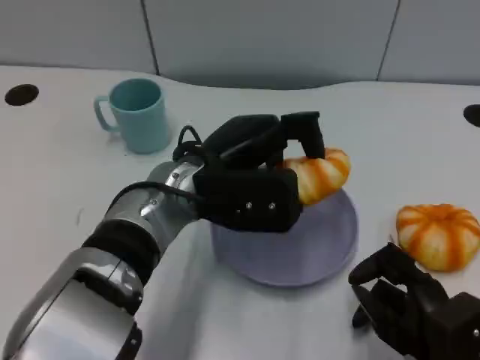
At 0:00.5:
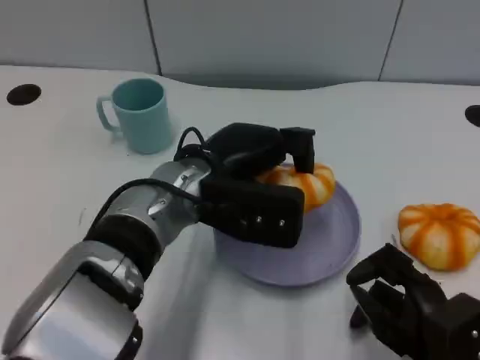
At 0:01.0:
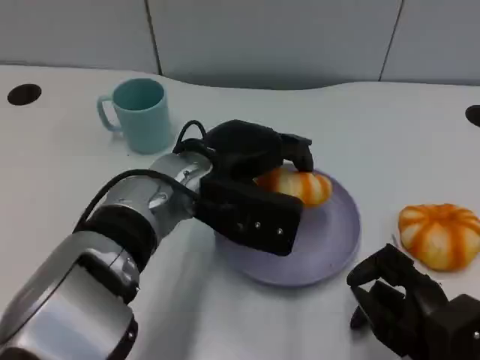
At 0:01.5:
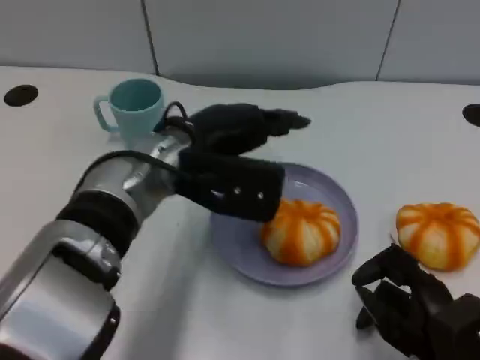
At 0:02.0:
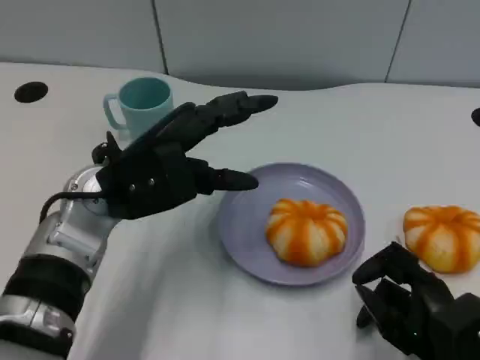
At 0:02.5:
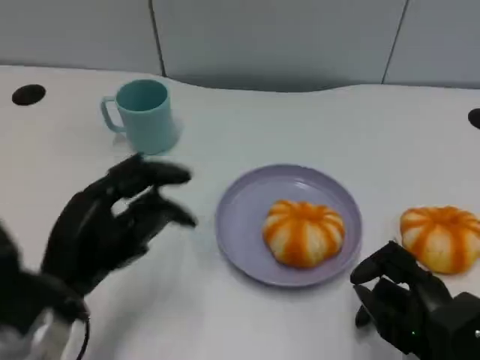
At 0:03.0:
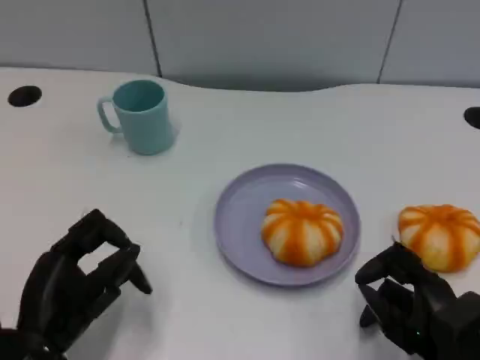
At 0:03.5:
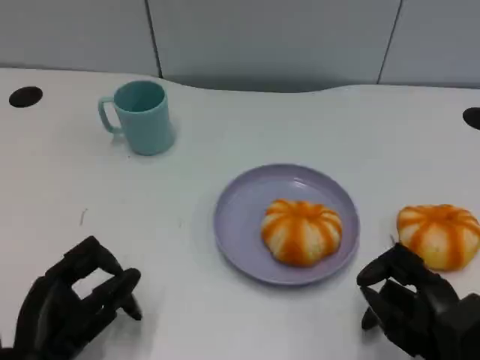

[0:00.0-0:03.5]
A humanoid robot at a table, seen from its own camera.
Task of the whole recording: Grasp the bread from the table and place it into the plate.
0:00.0 to 0:02.0: The left hand goes roughly 5 cm to the left.
0:02.0 to 0:03.5: The left hand heads backward, downward and to the left, covering roughly 20 cm.

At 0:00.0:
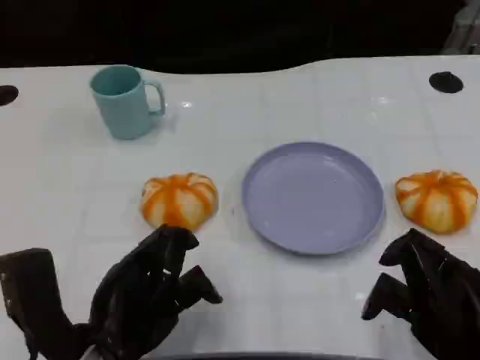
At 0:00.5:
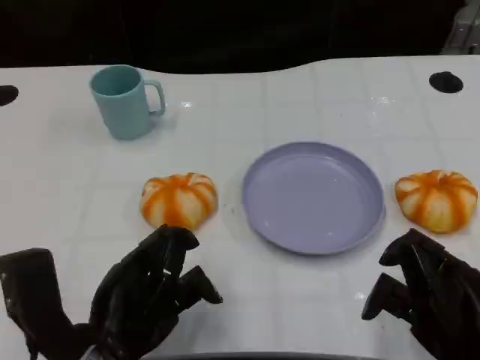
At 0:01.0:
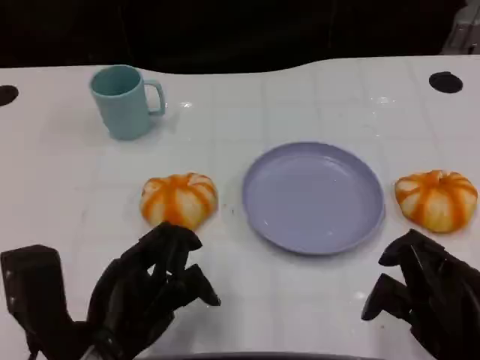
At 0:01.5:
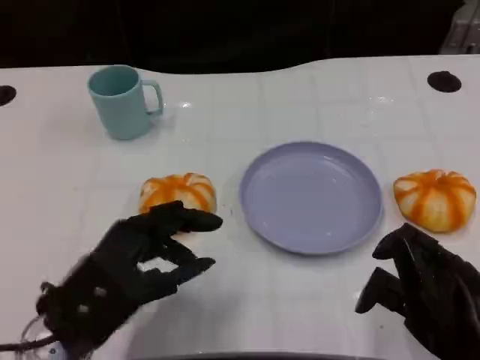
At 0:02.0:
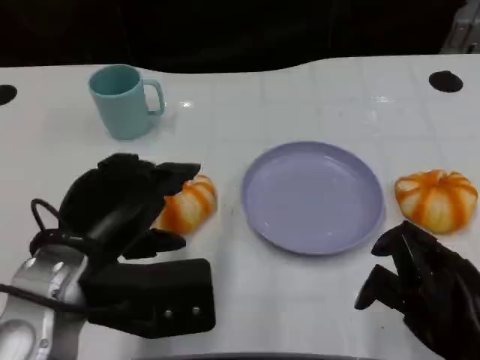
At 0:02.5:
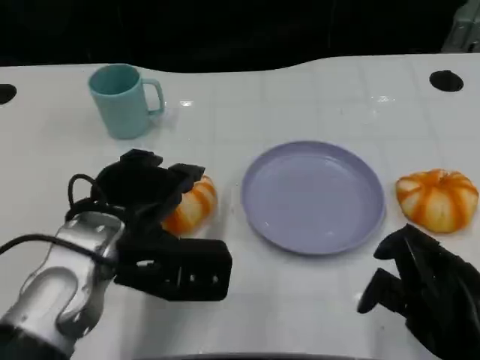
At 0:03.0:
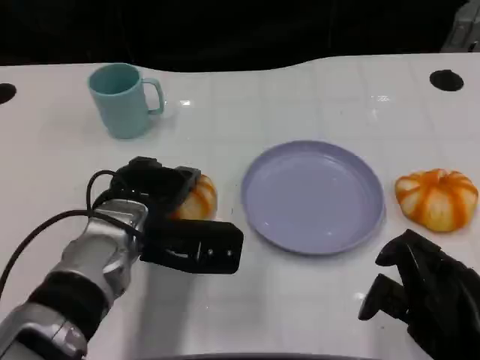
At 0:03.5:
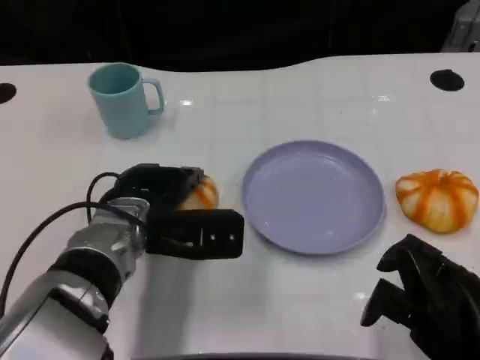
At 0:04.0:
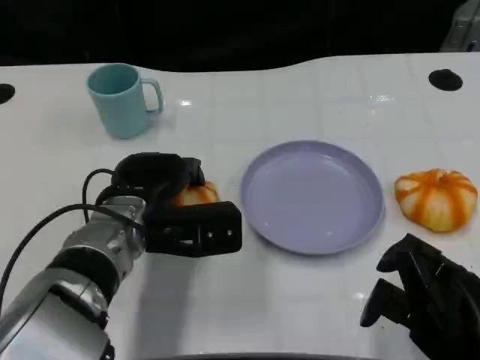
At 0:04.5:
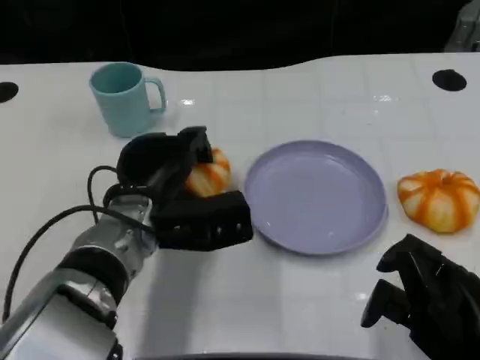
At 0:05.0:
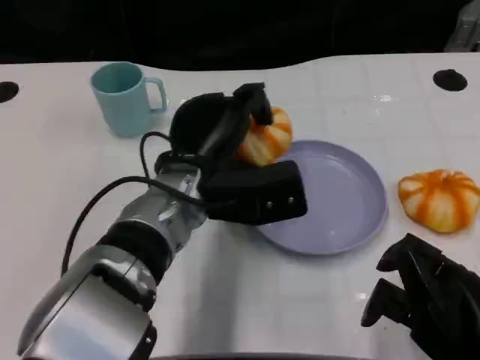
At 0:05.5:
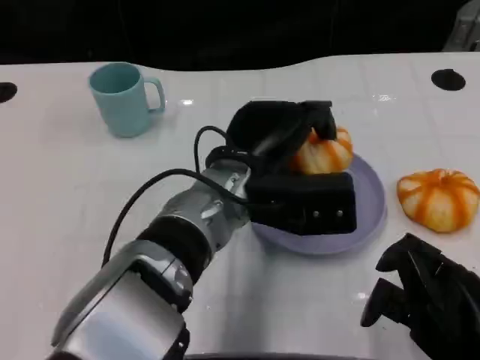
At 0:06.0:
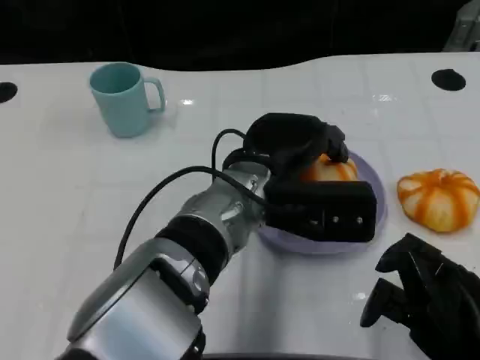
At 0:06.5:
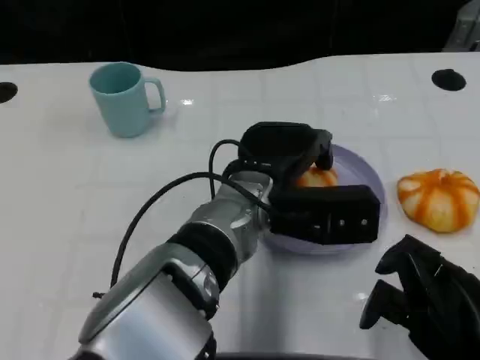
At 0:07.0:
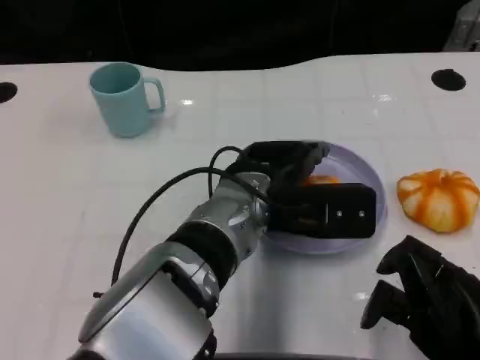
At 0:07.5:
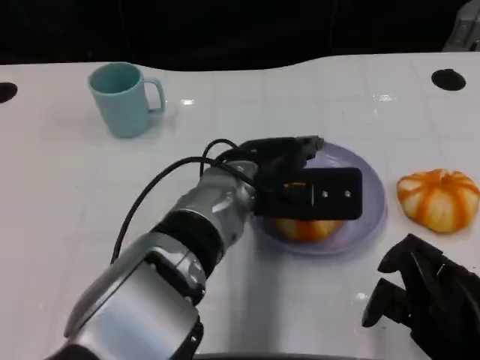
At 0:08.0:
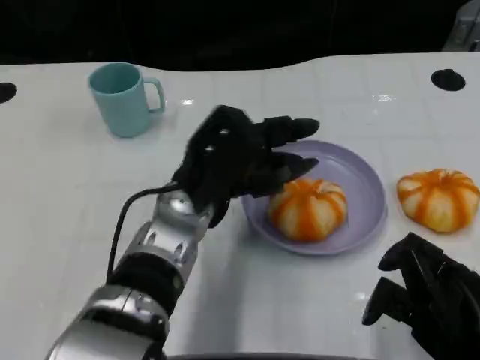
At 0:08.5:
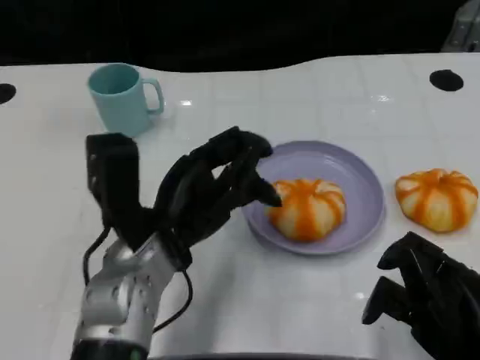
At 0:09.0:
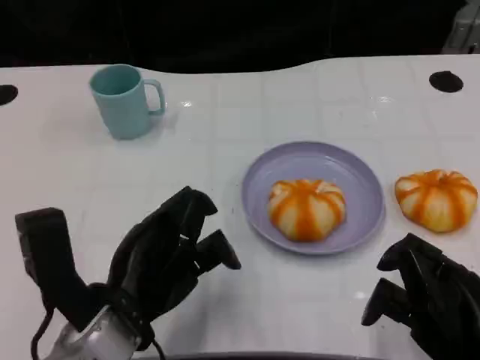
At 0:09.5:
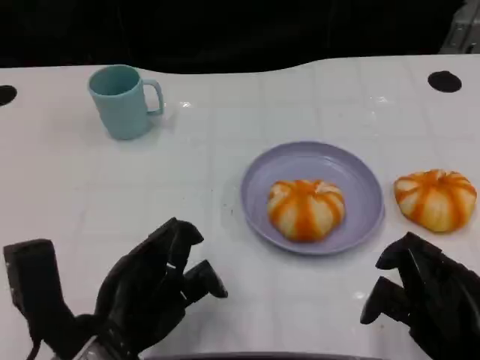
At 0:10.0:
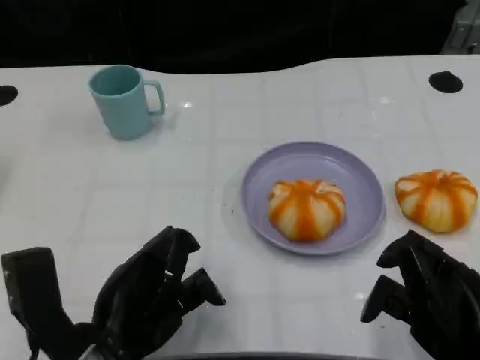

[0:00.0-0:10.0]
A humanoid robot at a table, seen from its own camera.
Task of the whole recording: Grasp the bread from the table and place it into the plate.
0:00.0 to 0:02.0: The left hand moves upward, about 5 cm.
0:02.0 to 0:04.0: The left hand shifts roughly 10 cm forward and downward.
0:04.0 to 0:06.0: The left hand travels to the right by approximately 10 cm.
0:06.0 to 0:08.0: The left hand moves to the left, some 5 cm.
0:08.0 to 0:10.0: The left hand moves backward and to the left, some 15 cm.

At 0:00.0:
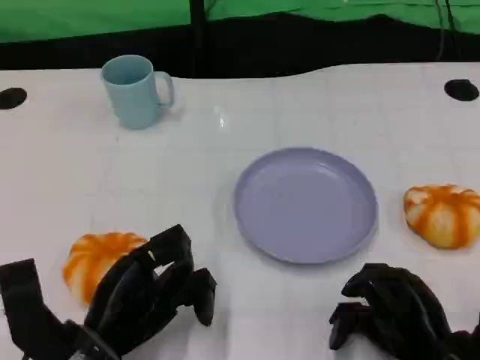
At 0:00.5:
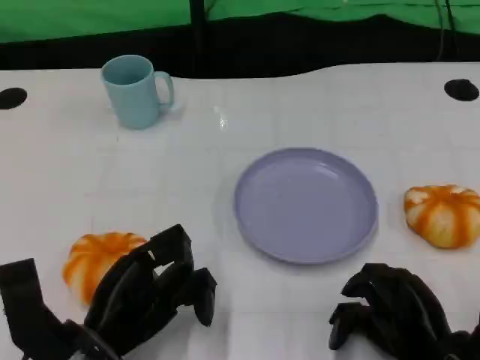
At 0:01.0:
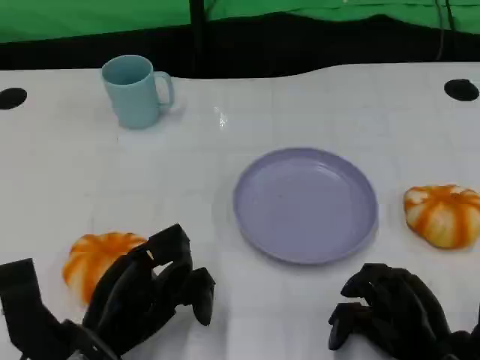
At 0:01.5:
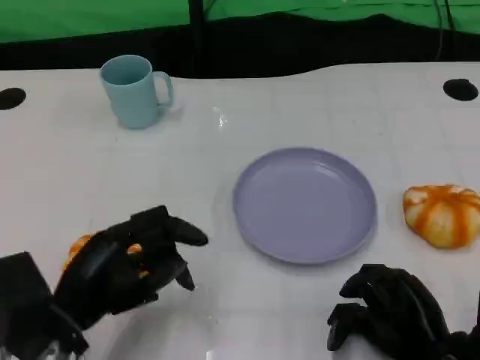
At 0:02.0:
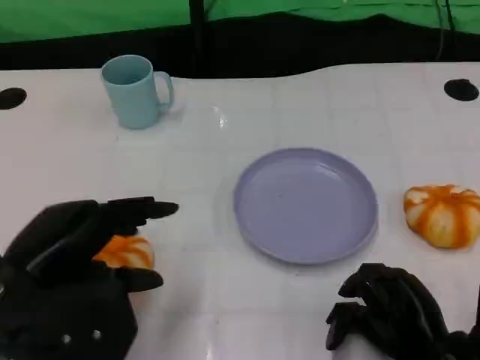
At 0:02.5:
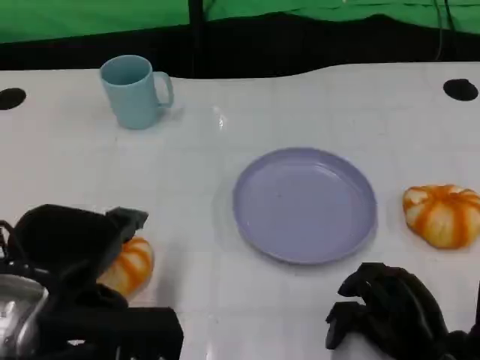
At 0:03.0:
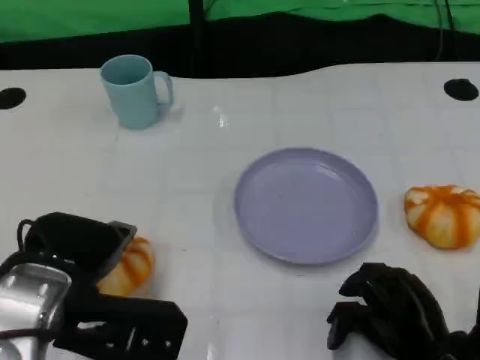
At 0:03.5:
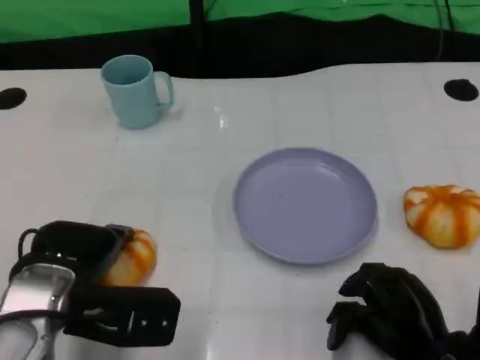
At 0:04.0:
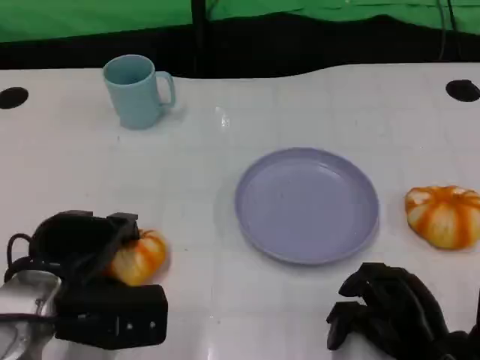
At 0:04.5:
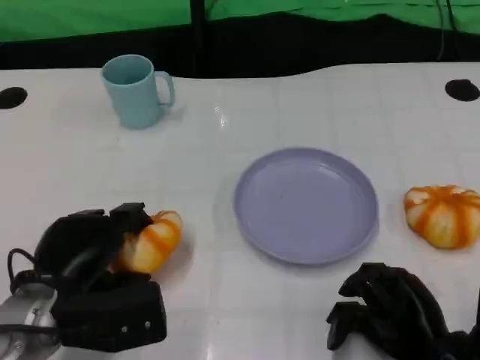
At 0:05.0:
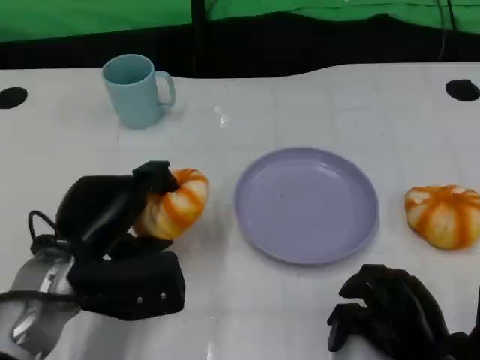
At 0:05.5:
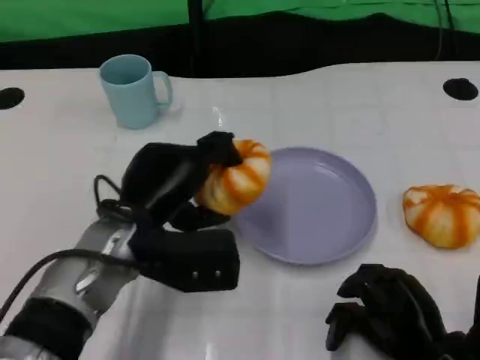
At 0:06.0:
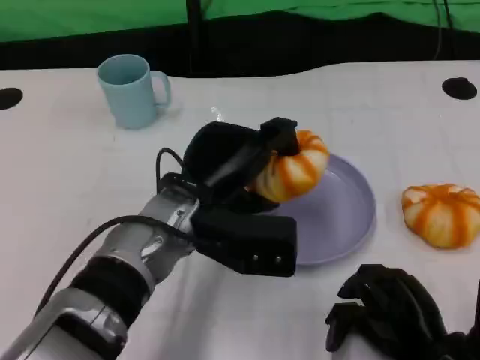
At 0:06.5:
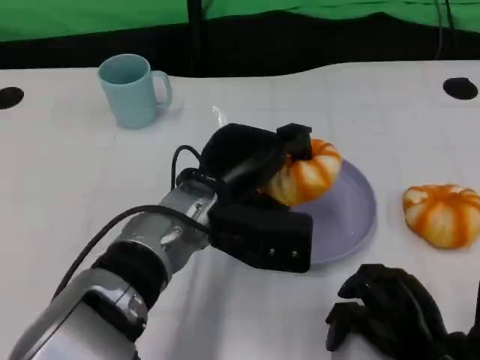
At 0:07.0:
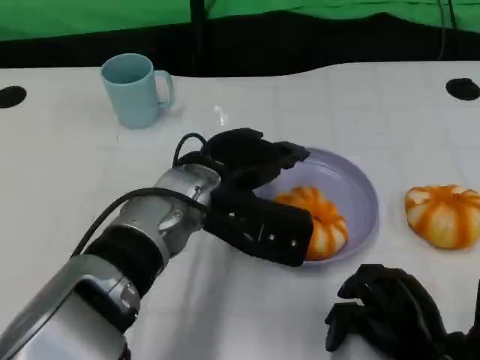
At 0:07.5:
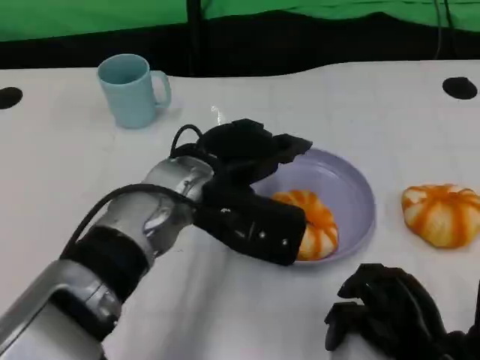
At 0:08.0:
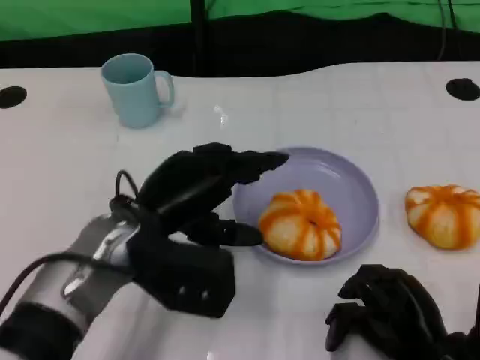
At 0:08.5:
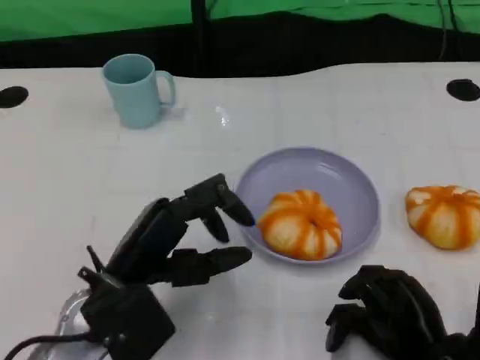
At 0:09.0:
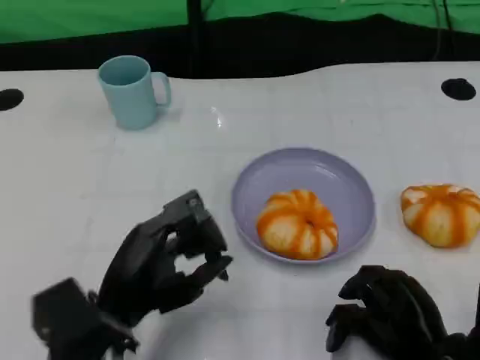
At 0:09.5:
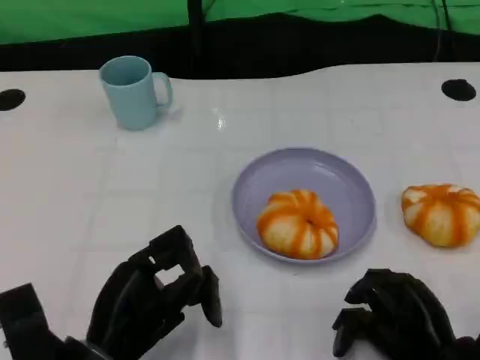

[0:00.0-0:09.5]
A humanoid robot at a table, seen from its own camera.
Task of the whole recording: Grasp the bread from the table and place it into the plate.
0:00.0 to 0:02.0: The left hand goes about 10 cm upward.
0:02.0 to 0:04.0: The left hand is displaced downward by some 10 cm.
0:04.0 to 0:05.5: The left hand travels to the right by approximately 10 cm.
0:05.5 to 0:07.5: The left hand is displaced to the right by roughly 5 cm.
0:07.5 to 0:09.5: The left hand shifts some 20 cm backward, downward and to the left.

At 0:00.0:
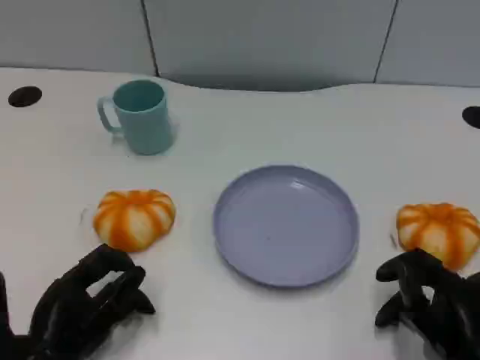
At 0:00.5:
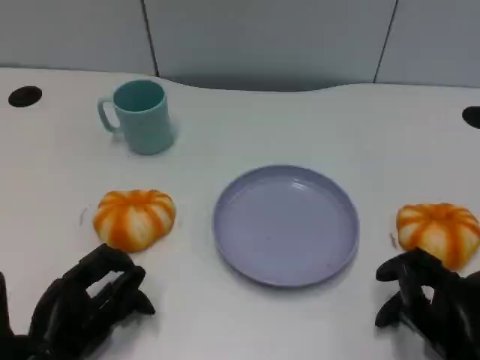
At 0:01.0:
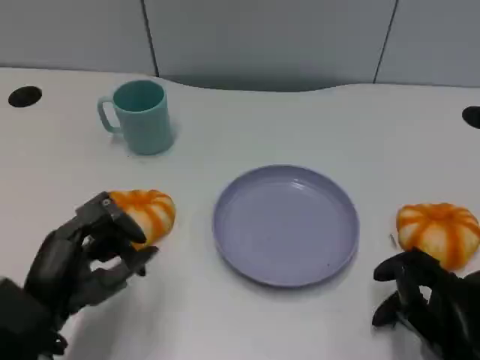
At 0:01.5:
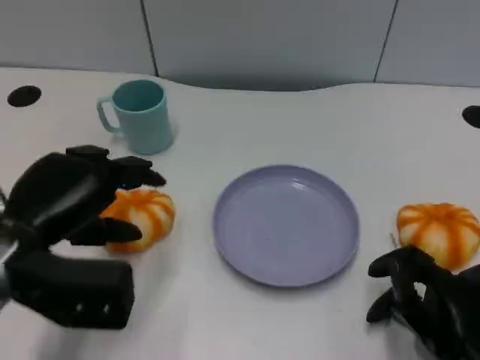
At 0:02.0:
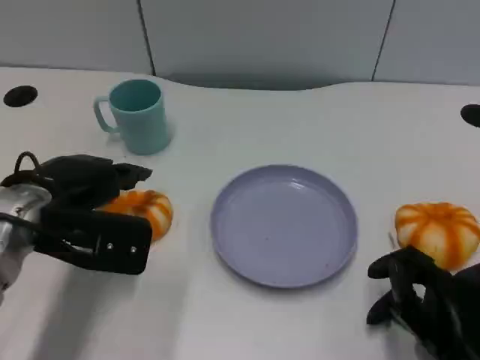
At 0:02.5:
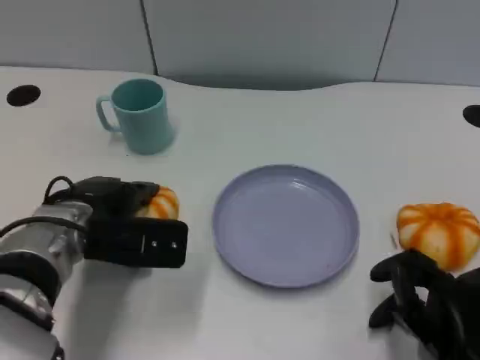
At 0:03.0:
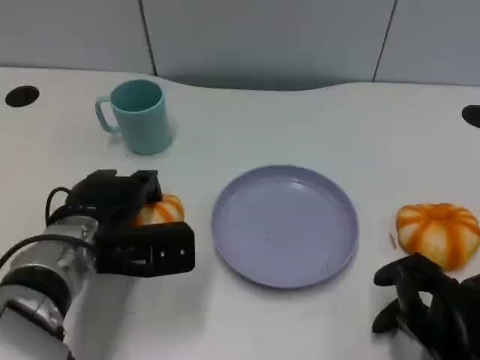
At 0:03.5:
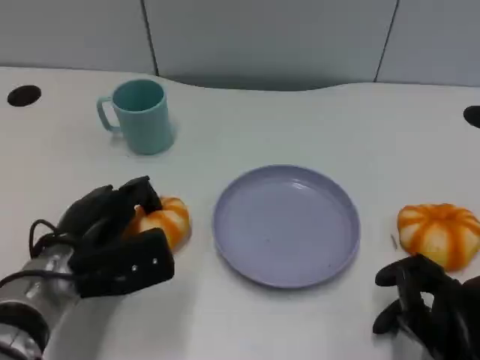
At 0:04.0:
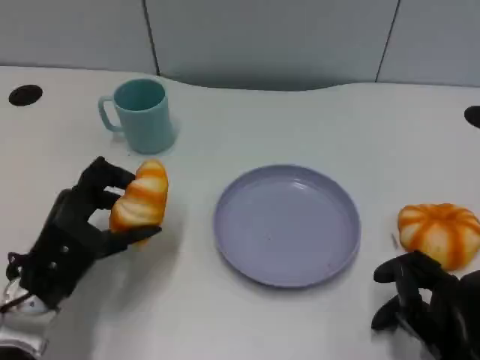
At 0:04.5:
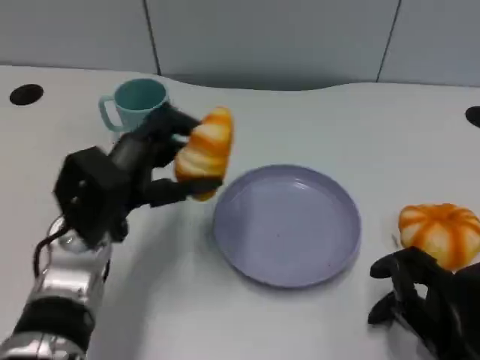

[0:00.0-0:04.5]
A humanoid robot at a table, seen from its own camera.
Task of the whole recording: Grasp the bread from the table and place it into the plate.
0:00.0 to 0:02.0: The left hand heads forward and upward, covering approximately 15 cm.
0:02.0 to 0:04.5: The left hand is displaced to the right by some 5 cm, and travels downward and back again, about 10 cm each way.
